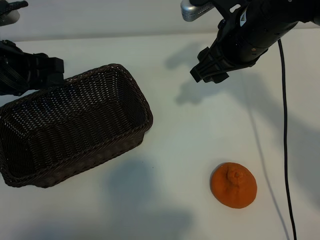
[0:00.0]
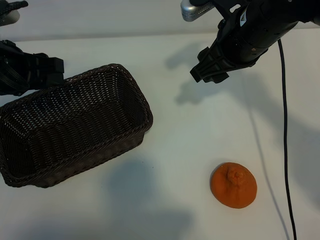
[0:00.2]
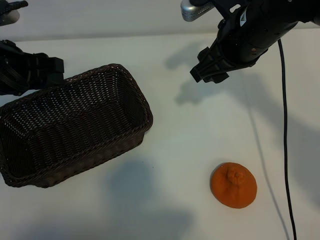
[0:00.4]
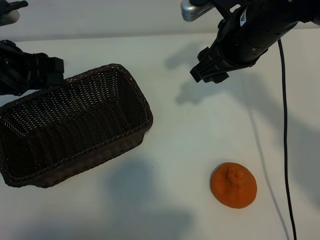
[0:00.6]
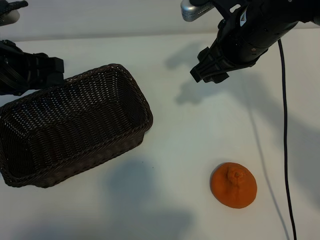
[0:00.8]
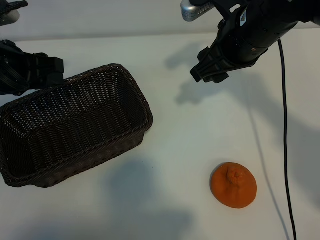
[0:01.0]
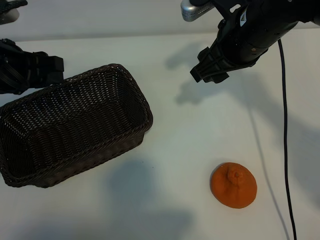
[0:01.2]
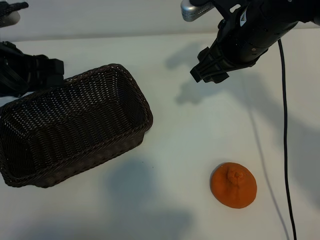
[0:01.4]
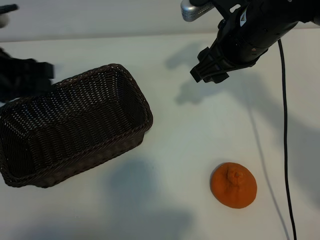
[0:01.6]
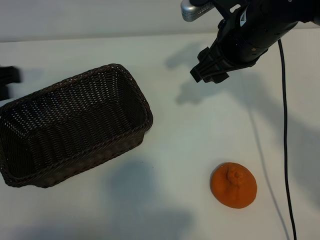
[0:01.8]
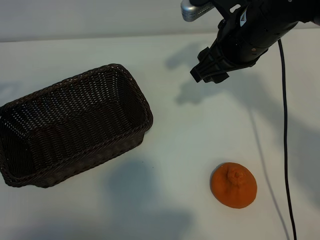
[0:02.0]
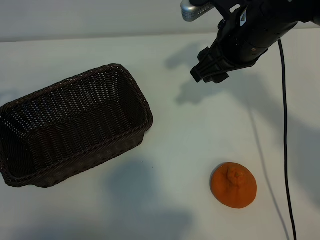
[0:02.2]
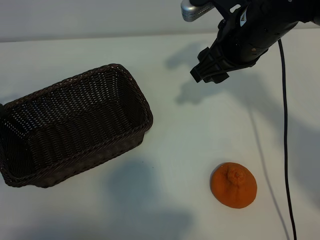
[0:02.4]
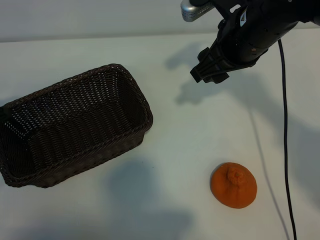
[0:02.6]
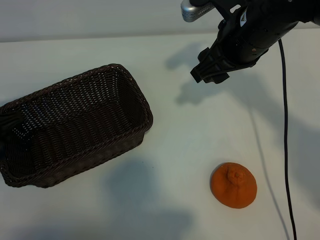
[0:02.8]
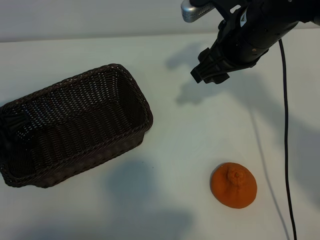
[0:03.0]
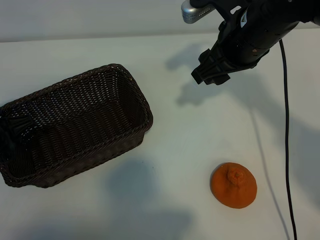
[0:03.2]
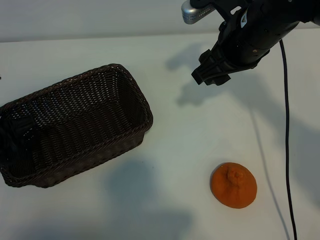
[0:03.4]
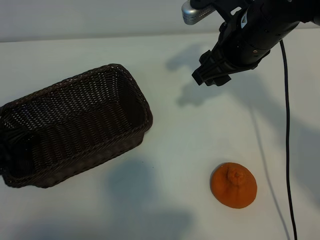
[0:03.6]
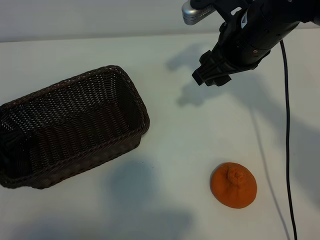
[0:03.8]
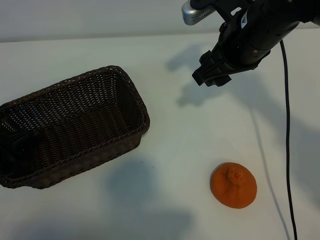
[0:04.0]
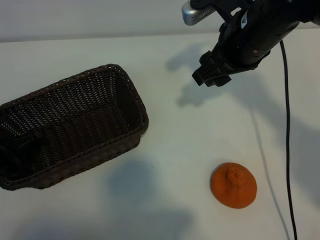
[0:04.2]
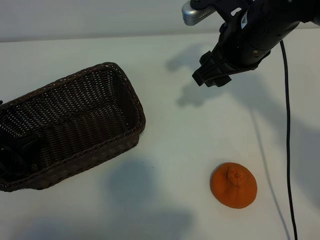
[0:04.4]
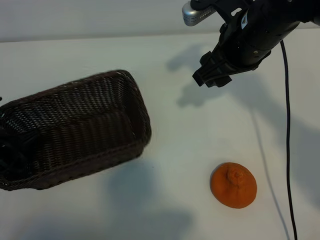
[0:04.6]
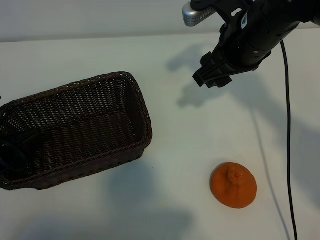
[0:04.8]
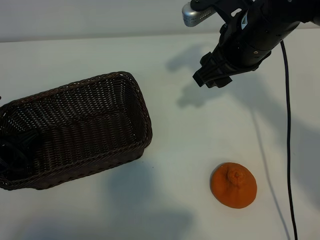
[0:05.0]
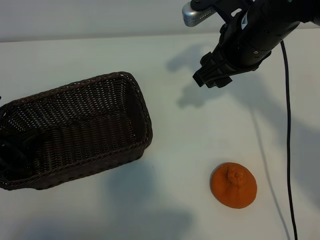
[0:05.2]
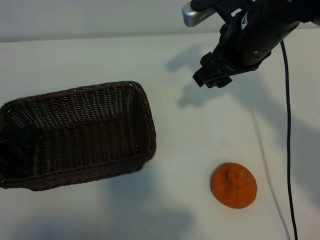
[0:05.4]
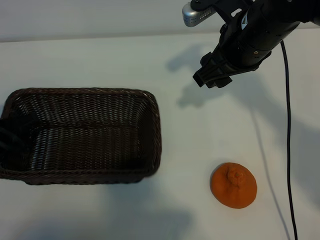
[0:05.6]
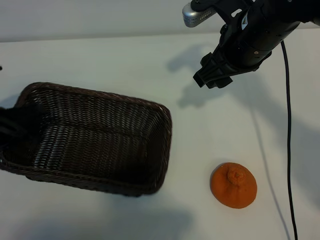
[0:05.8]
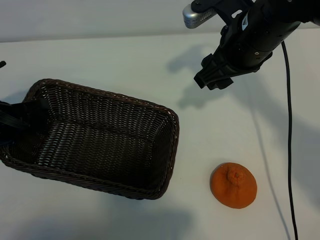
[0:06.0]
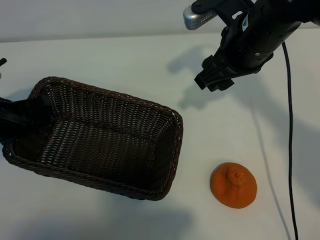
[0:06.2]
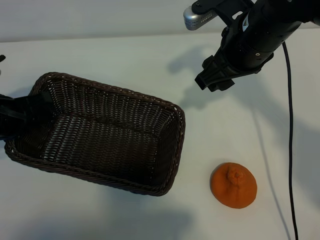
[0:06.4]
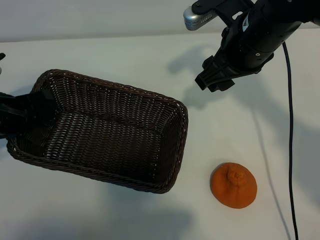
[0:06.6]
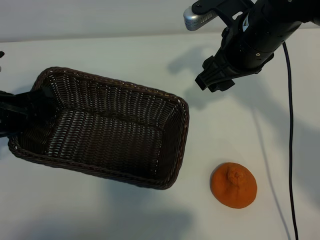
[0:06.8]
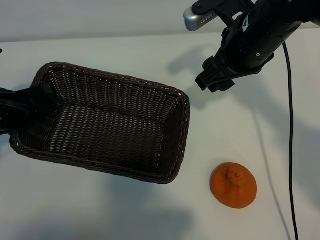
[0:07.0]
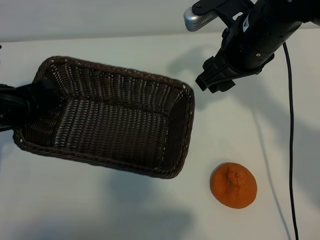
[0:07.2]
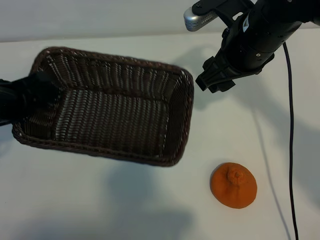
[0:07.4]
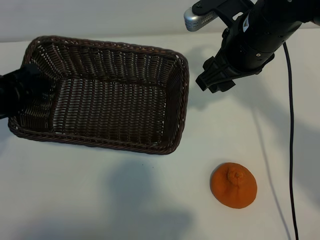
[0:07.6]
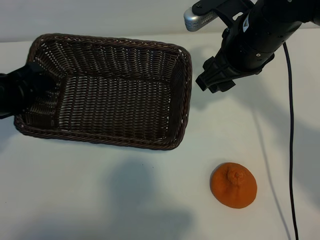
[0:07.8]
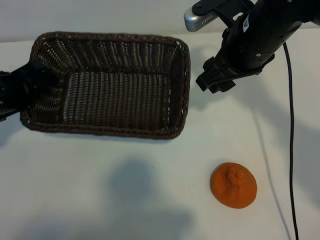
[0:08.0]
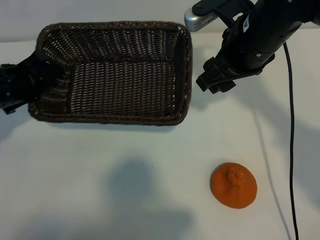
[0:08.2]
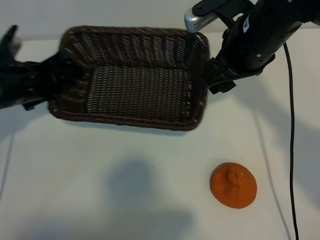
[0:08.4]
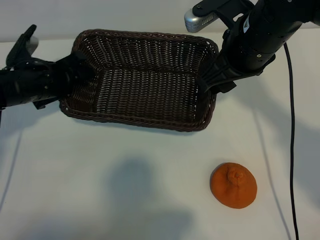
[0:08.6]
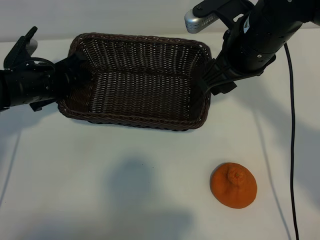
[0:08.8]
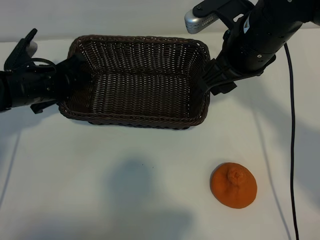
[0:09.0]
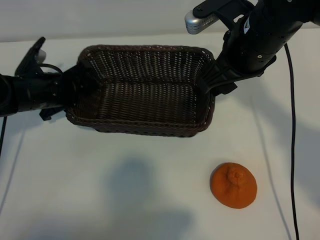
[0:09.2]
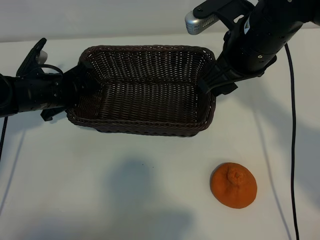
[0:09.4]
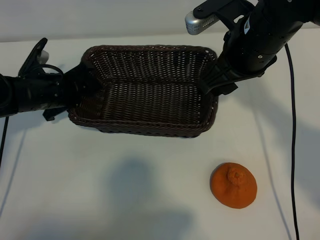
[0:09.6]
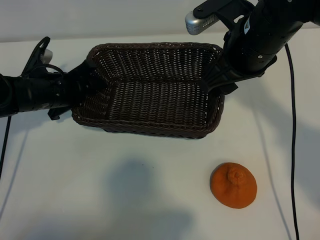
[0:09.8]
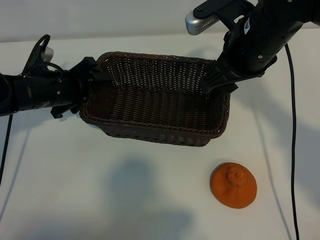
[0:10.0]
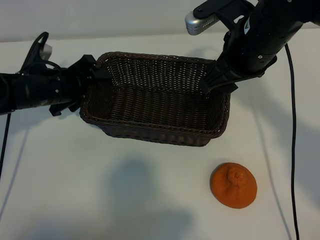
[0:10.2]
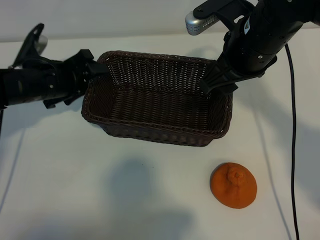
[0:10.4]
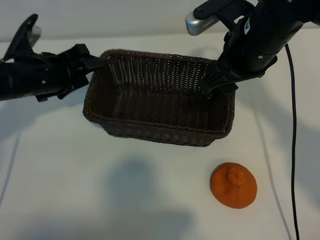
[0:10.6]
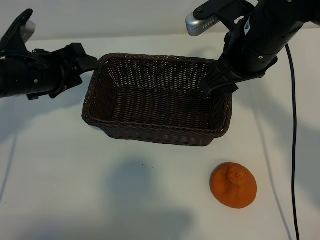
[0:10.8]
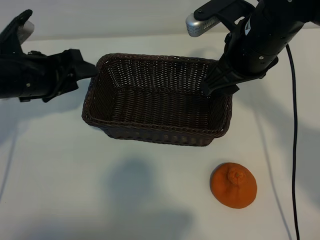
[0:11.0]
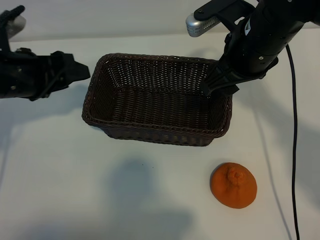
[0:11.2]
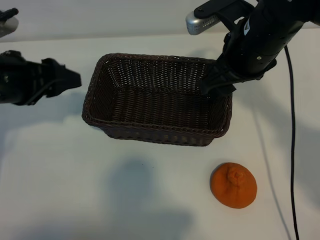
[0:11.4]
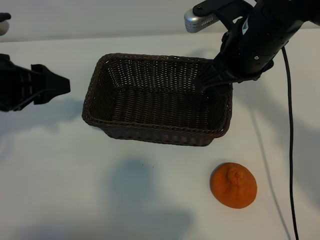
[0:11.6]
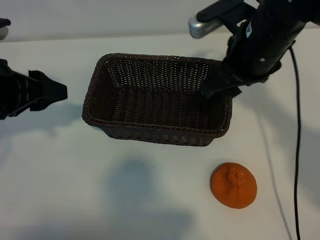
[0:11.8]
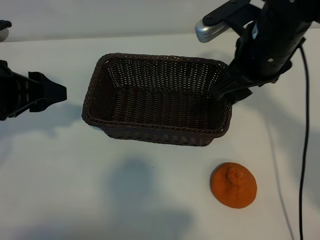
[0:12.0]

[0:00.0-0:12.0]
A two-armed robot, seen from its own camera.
Task of the whole recording: pick up the orange and put it into the basket.
Step, 0:01.2 to 0:04.6: Grasp the basket with left gripper.
Step, 0:04.8 to 0:09.8: Place the basket in the center of view with left gripper.

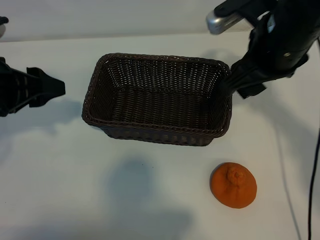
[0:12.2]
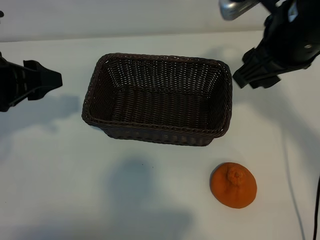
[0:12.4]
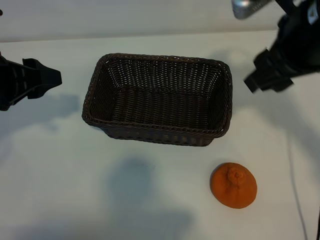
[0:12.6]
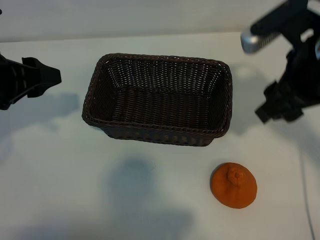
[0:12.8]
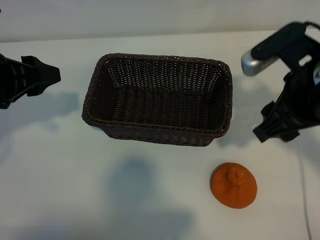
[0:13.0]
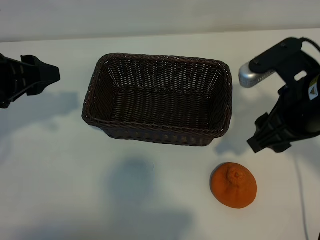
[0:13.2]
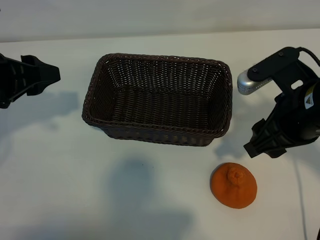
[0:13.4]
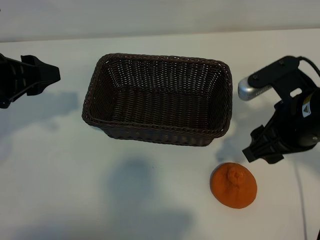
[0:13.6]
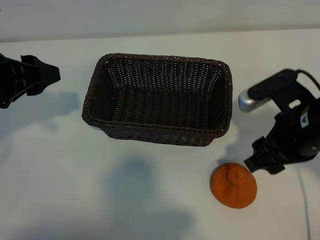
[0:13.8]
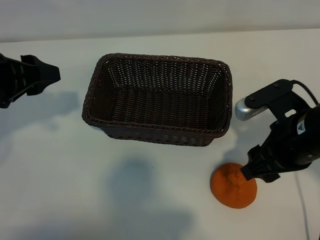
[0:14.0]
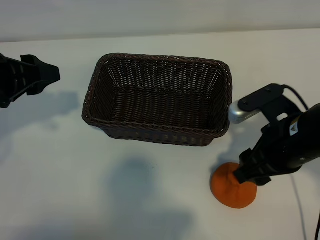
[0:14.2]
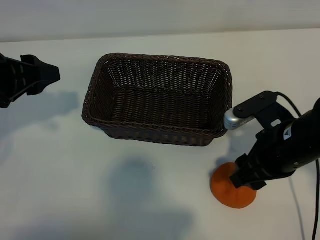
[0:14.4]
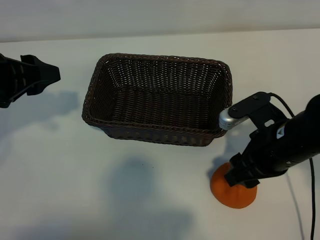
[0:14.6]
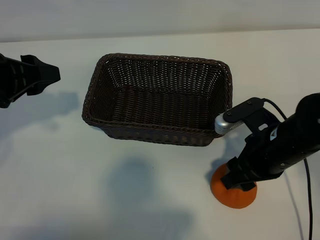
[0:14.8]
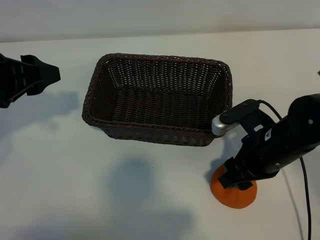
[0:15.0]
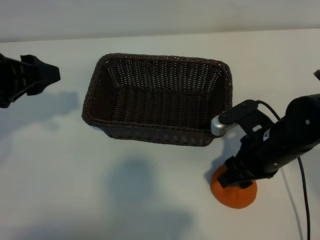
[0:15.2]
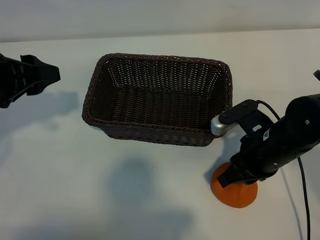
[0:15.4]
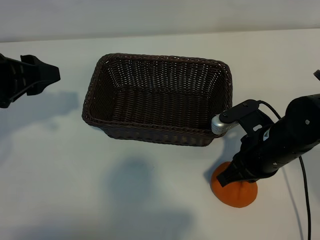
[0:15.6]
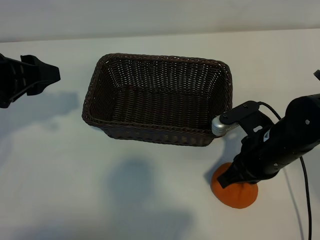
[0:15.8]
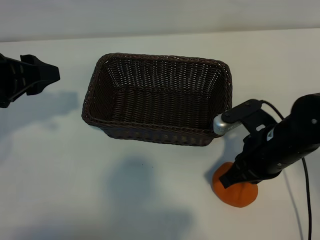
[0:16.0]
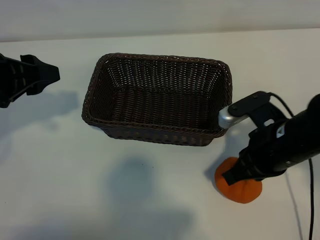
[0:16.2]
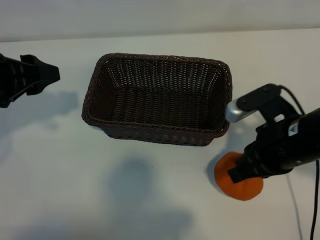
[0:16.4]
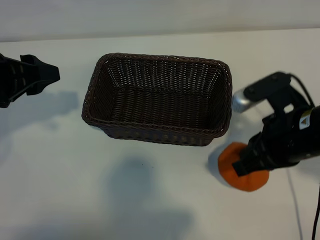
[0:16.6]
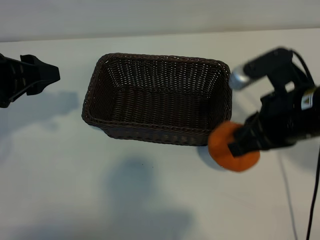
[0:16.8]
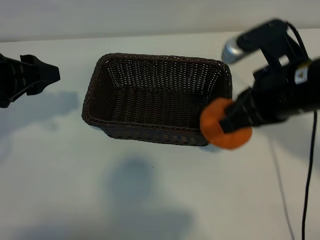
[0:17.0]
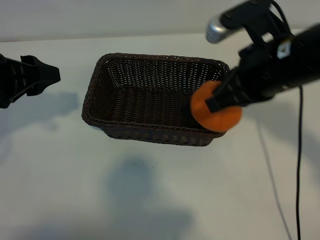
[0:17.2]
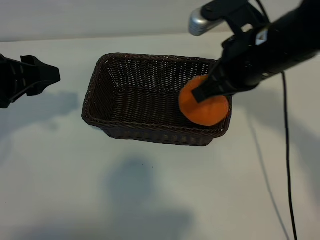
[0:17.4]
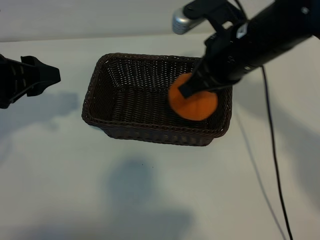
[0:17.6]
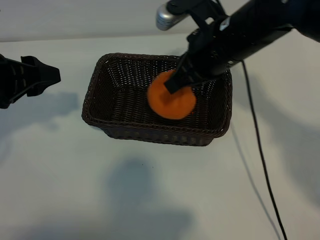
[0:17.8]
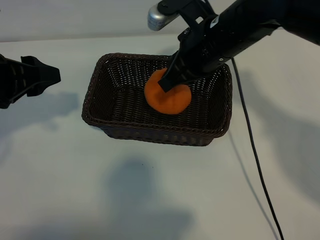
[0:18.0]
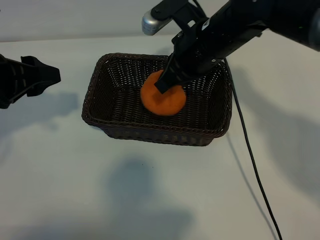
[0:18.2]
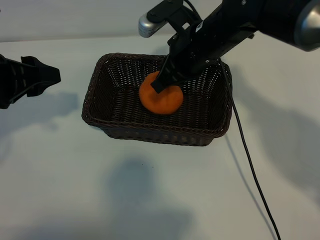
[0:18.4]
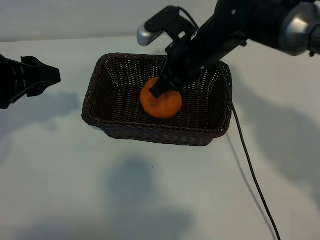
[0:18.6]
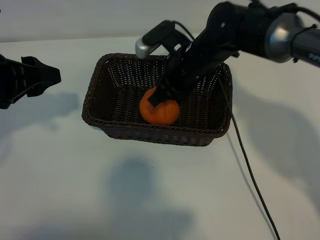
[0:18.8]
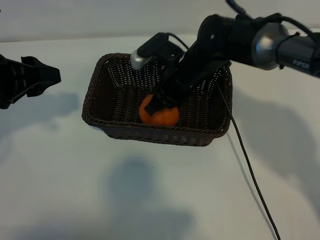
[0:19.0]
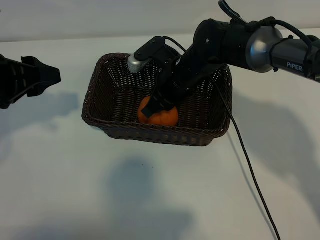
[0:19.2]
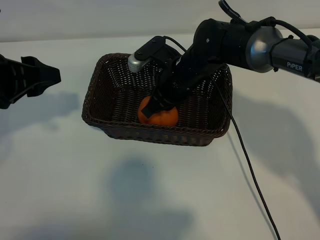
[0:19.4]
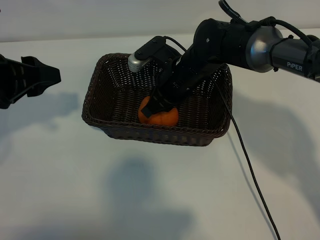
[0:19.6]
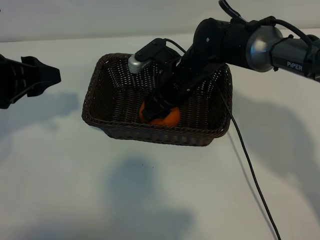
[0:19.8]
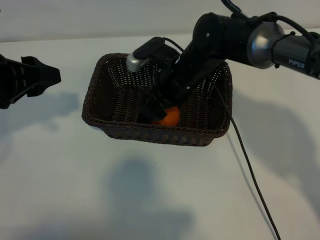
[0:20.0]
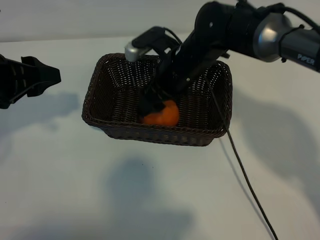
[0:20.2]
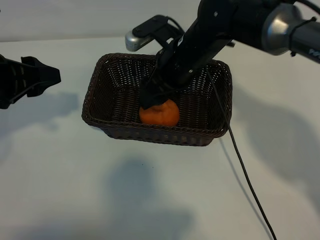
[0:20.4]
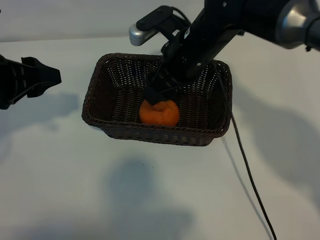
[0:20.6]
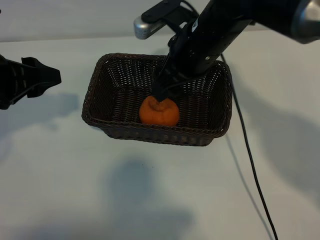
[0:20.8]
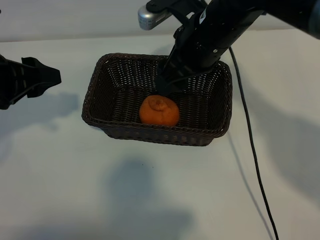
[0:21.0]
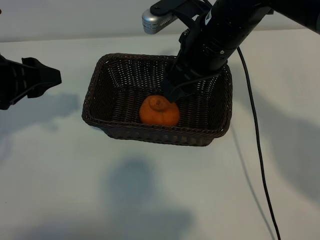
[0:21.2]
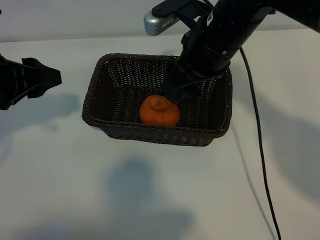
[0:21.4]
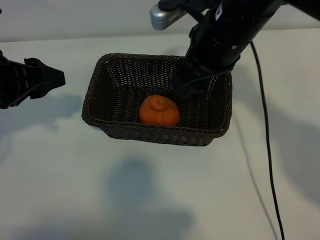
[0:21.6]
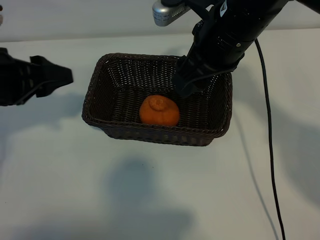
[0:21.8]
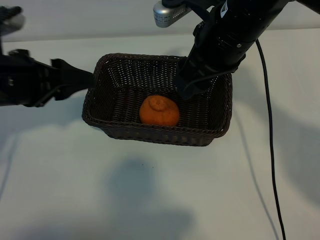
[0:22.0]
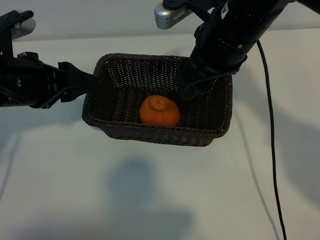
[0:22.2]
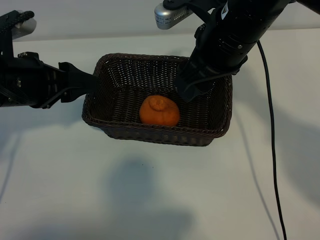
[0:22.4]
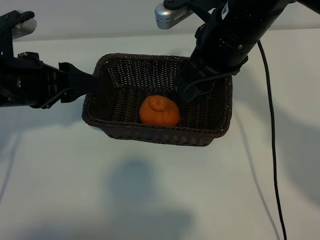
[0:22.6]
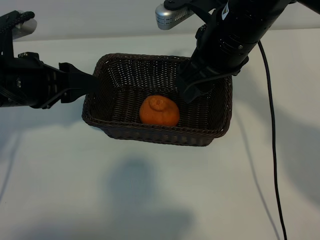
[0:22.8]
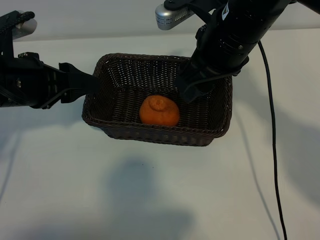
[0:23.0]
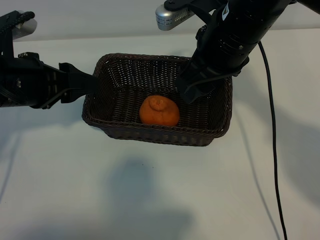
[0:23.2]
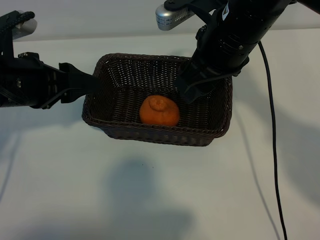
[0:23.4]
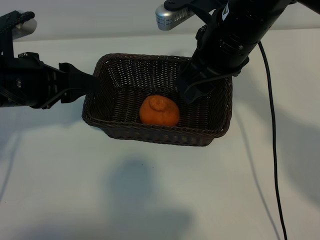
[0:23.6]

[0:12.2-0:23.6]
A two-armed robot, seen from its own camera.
Task of the whole recording: pick up the orange and put it into the basket.
Step, 0:12.2 to 0:15.4: Grasp the orange with right gripper.
Step, 0:15.8 to 0:19.8: Place the orange in the basket with right gripper.
